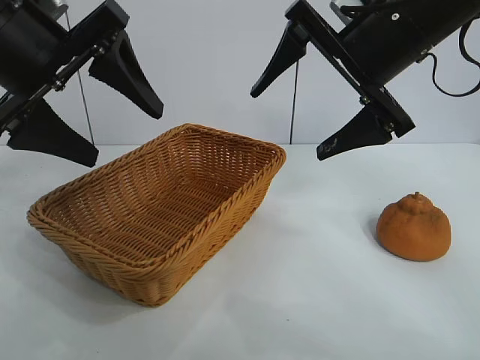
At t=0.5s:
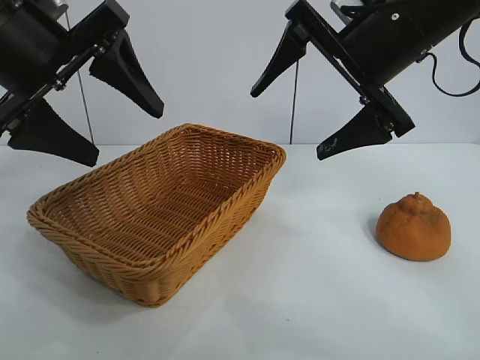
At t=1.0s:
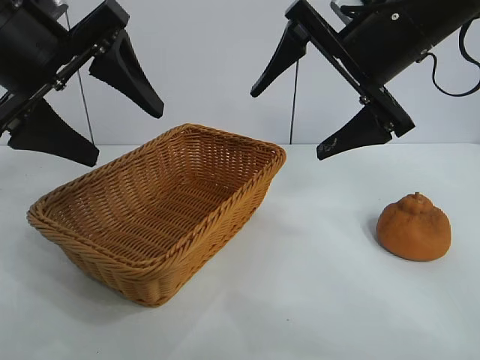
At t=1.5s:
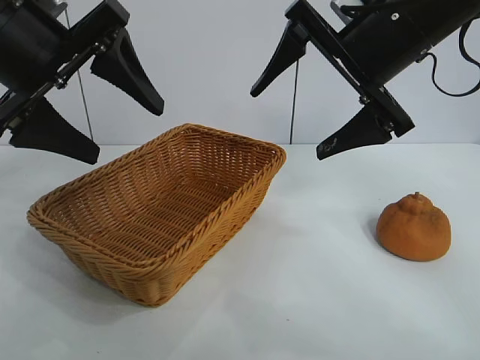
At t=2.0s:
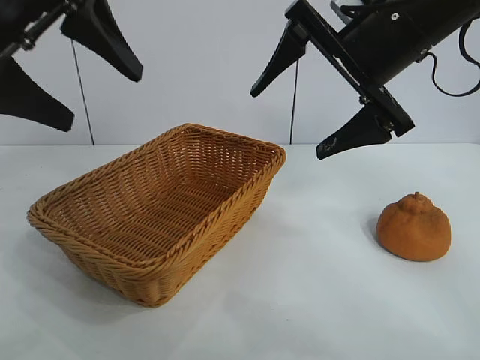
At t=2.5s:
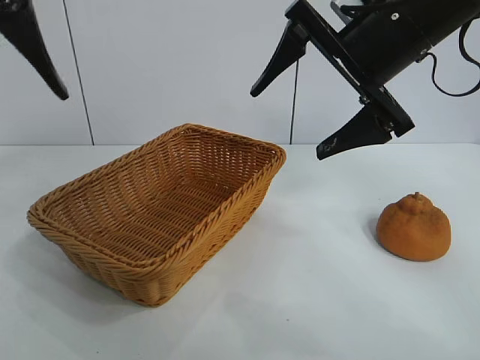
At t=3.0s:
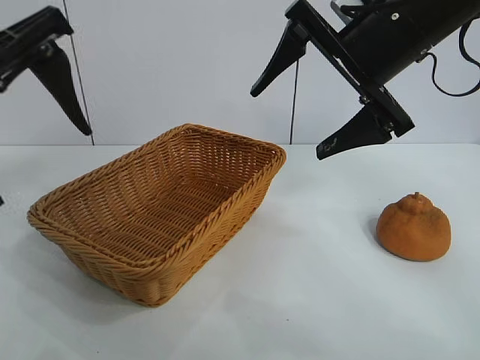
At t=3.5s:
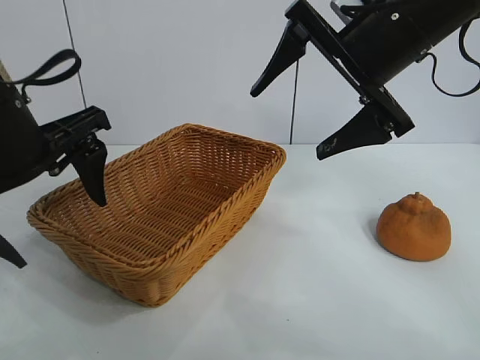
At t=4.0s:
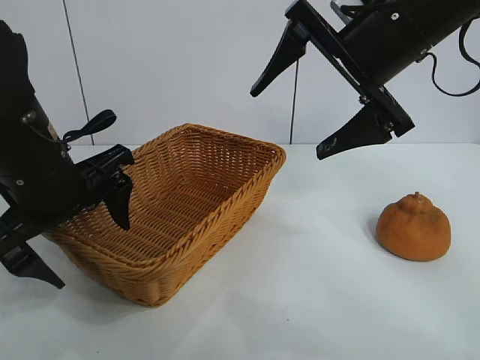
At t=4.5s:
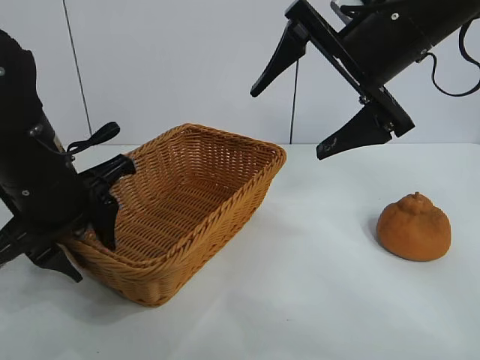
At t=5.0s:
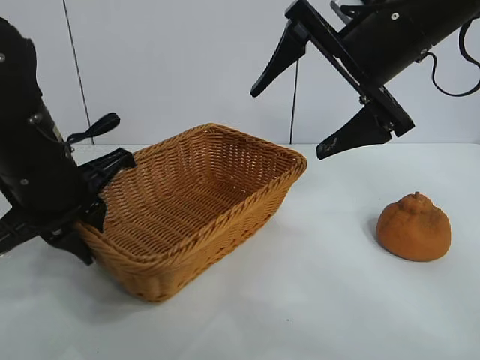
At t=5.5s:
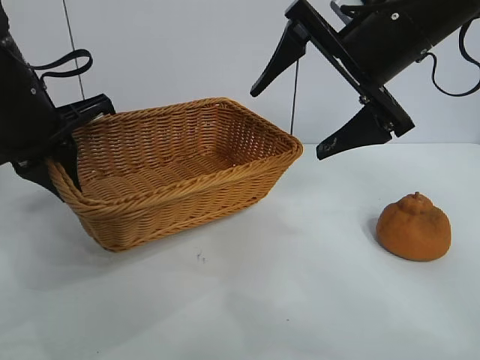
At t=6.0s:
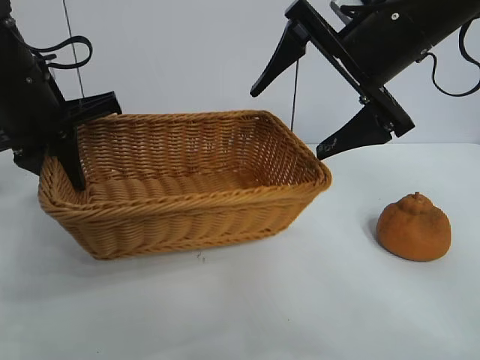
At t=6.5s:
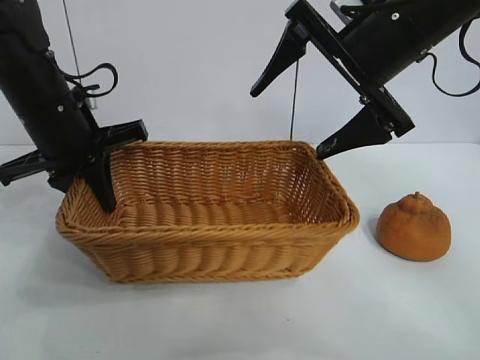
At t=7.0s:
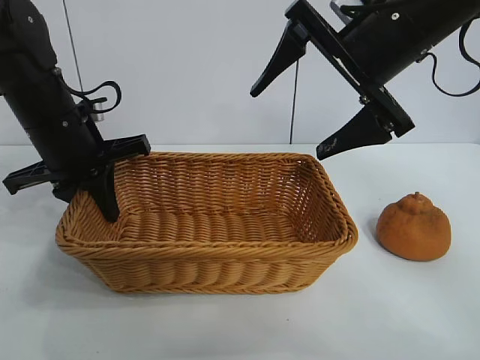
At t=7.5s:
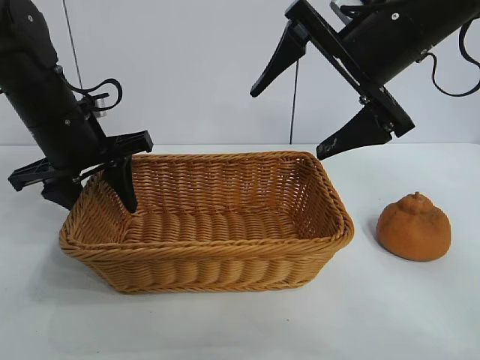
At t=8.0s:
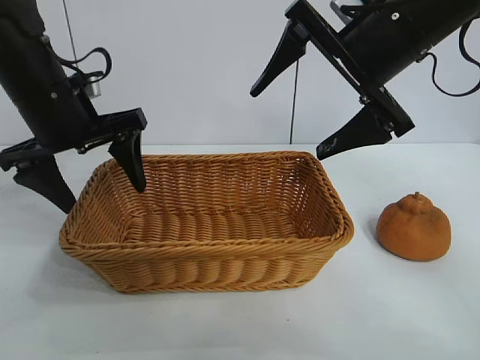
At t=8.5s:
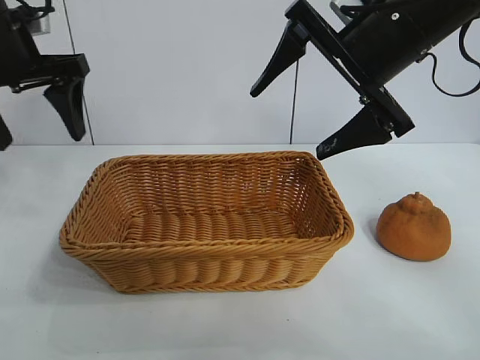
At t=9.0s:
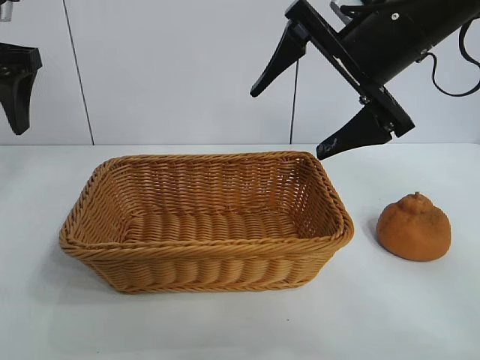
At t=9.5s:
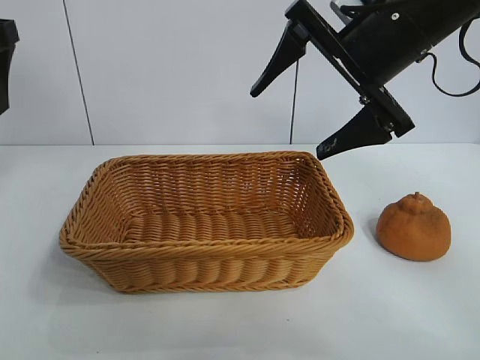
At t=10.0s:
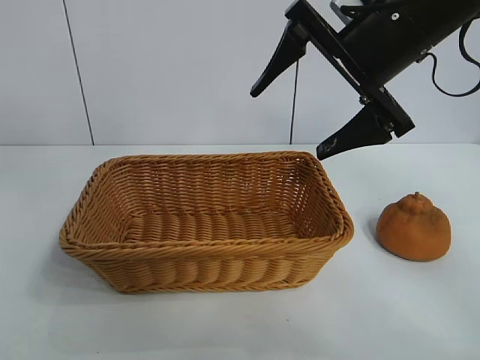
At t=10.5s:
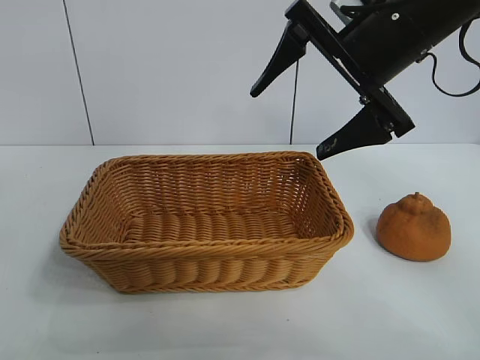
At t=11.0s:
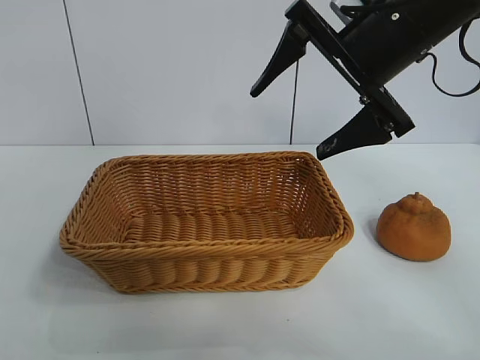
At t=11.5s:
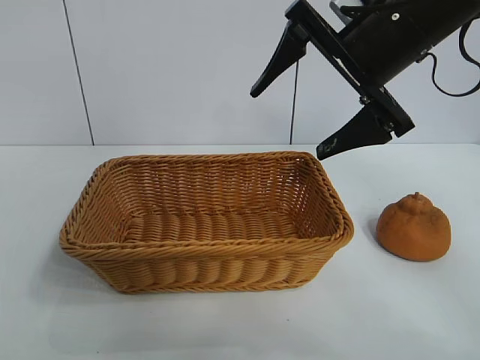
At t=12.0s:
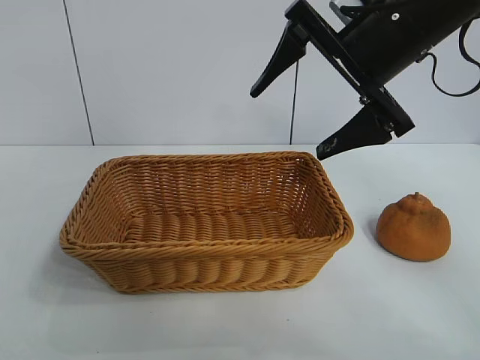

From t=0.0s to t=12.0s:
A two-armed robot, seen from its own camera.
Task of the whole recording: pick up the orange and put it into the basket.
Step, from t=1.5s to t=4.5s: Grasp the basket with left gripper.
Step, from t=5.0s to t=8.0s: Place the basket in the center of view with left gripper.

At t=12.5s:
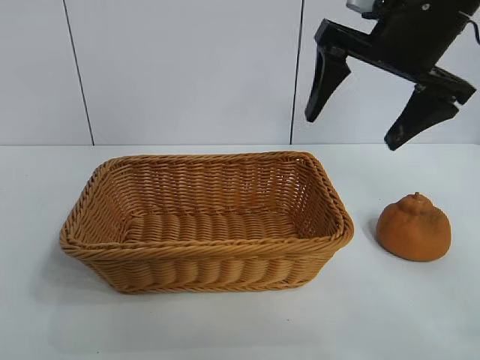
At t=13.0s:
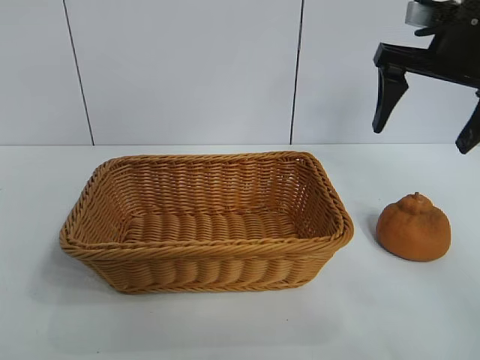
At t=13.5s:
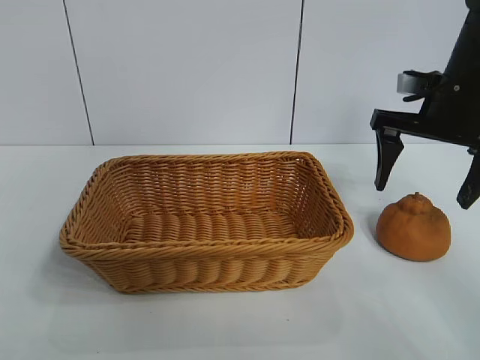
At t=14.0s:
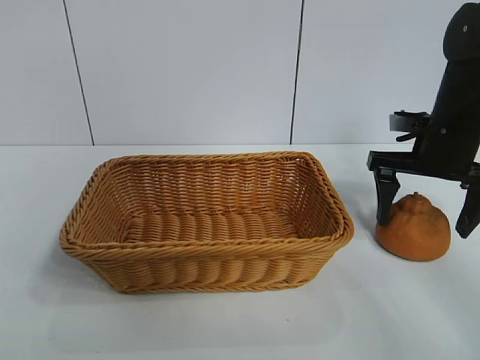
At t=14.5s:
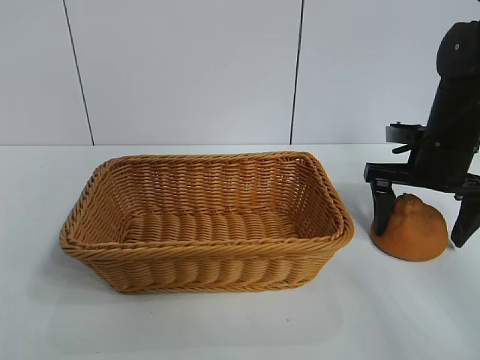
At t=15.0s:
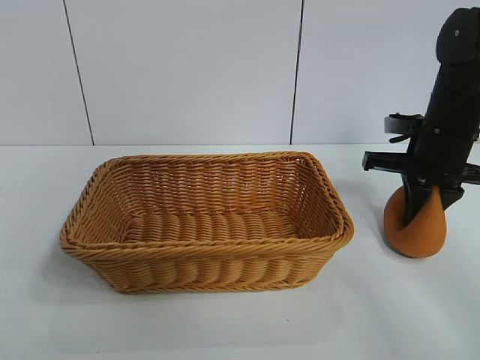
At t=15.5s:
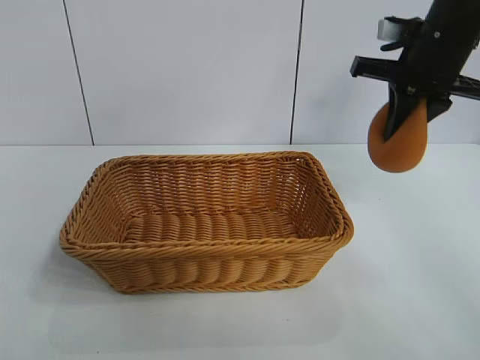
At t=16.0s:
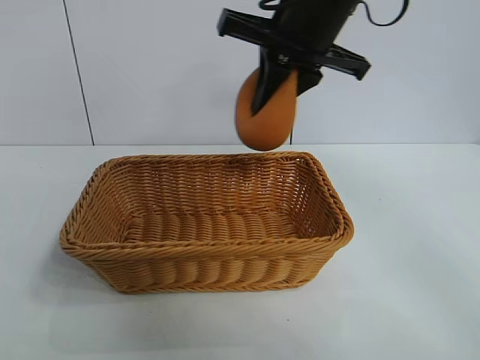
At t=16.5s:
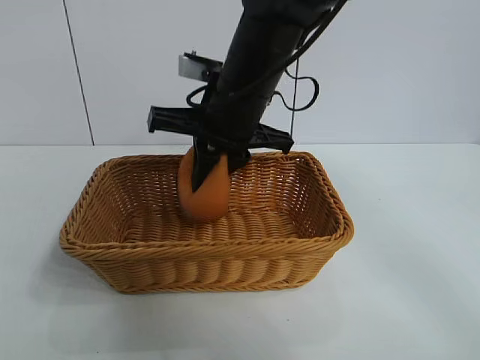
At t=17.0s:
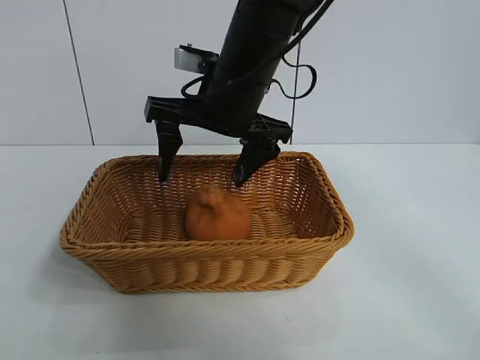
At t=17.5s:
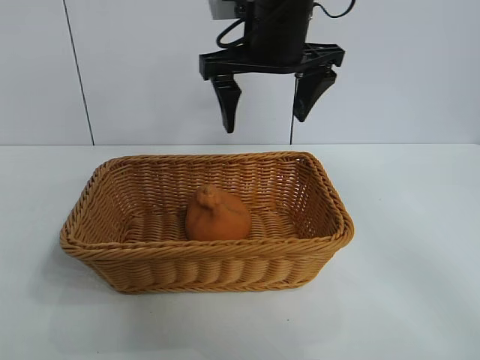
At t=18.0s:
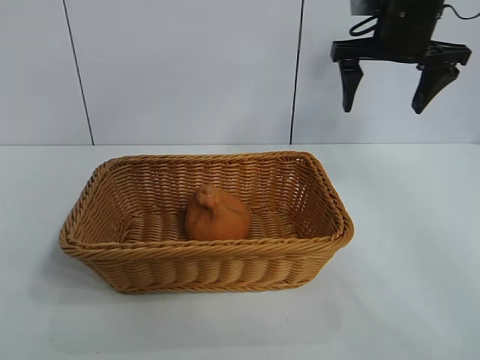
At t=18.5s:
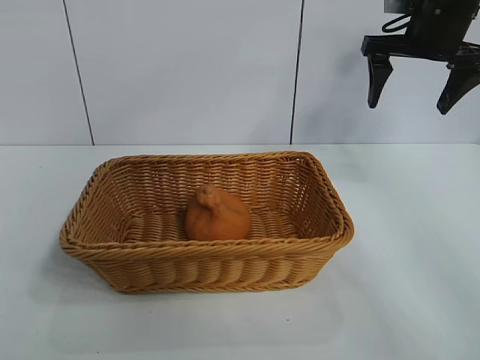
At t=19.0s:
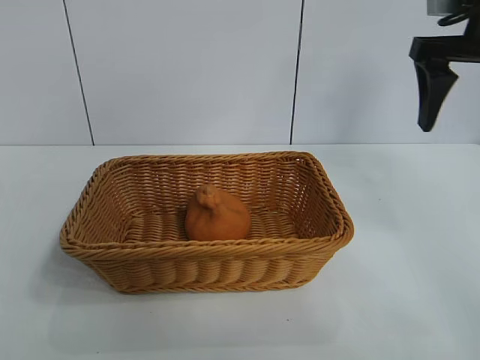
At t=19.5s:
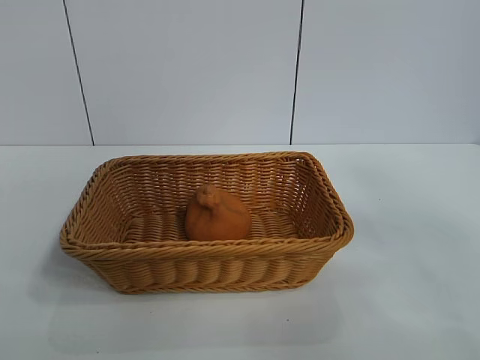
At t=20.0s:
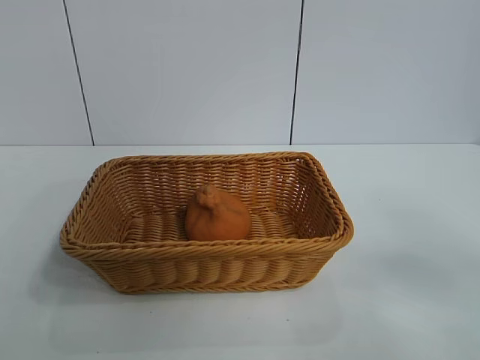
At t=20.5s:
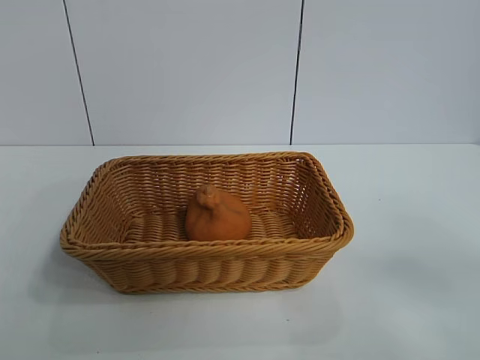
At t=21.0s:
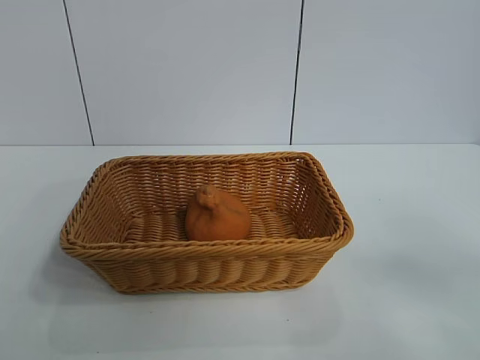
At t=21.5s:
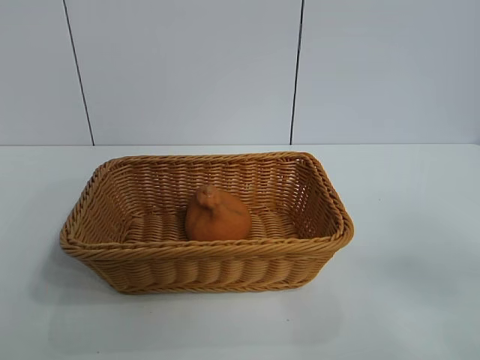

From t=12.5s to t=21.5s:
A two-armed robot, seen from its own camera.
Task of the whole recording: pick up the orange and put it into the basket.
Step, from t=12.5s to t=14.5s: Grasp the orange with right gripper.
Step, from t=15.0s to t=17.5s: Place the orange in the basket with right gripper.
